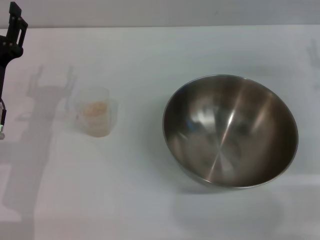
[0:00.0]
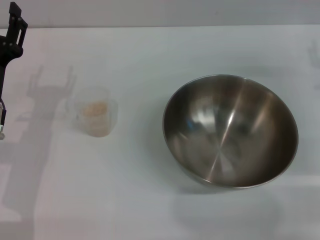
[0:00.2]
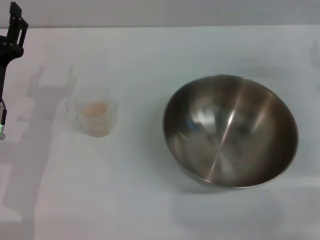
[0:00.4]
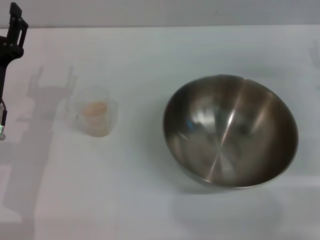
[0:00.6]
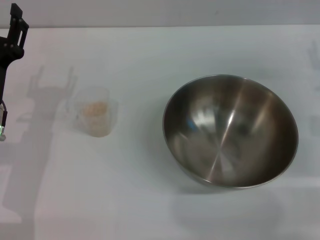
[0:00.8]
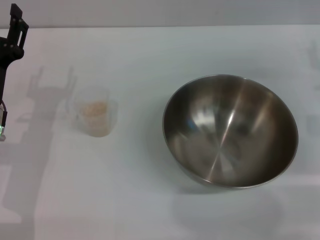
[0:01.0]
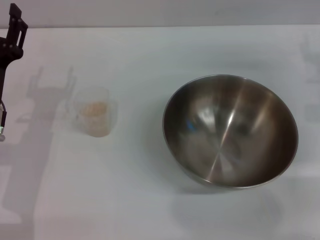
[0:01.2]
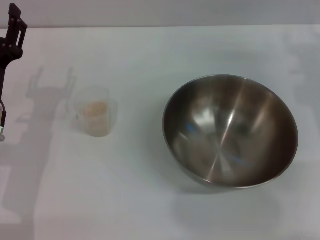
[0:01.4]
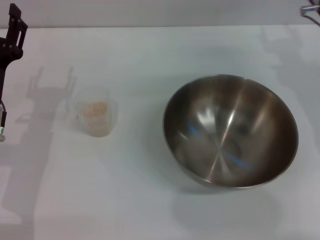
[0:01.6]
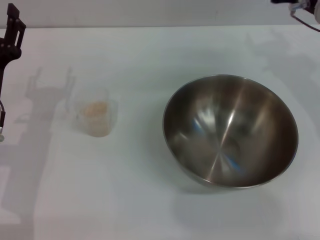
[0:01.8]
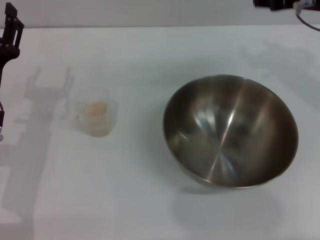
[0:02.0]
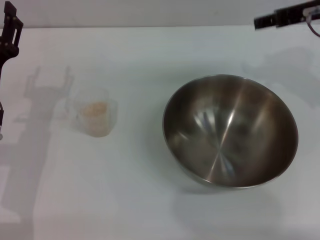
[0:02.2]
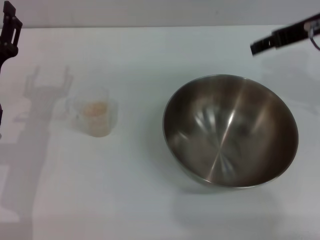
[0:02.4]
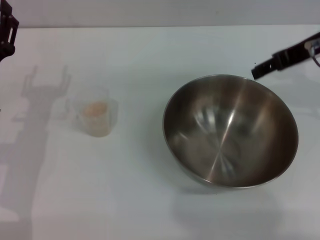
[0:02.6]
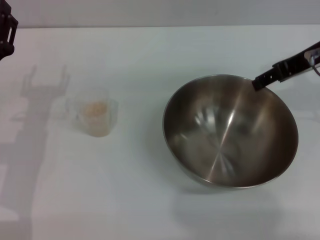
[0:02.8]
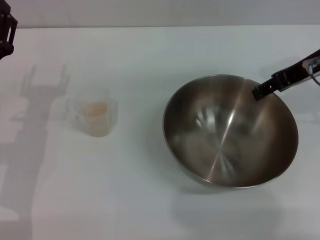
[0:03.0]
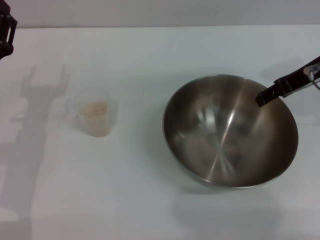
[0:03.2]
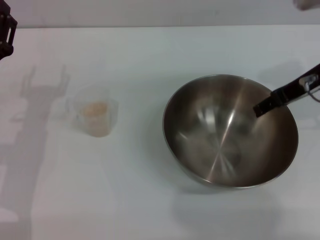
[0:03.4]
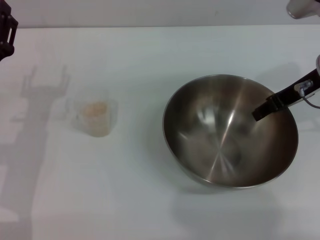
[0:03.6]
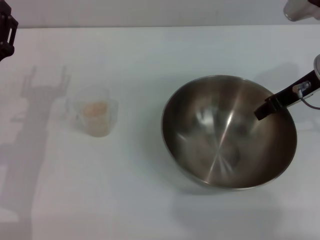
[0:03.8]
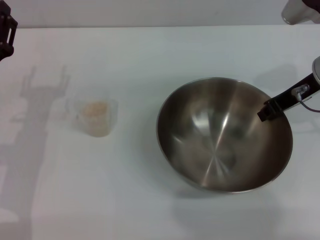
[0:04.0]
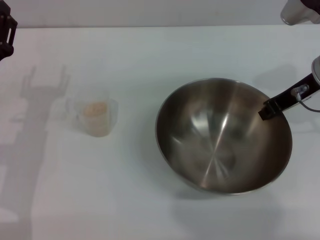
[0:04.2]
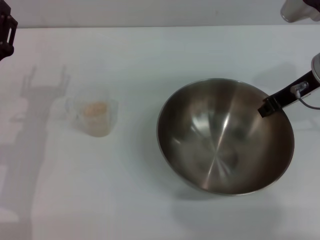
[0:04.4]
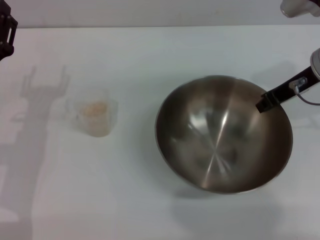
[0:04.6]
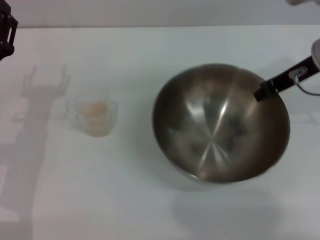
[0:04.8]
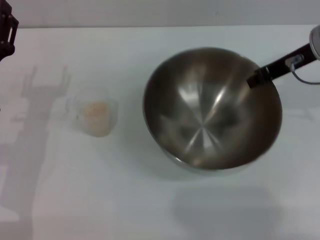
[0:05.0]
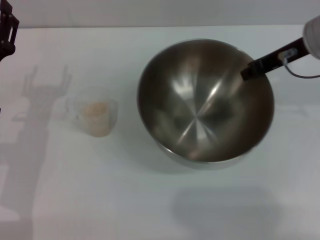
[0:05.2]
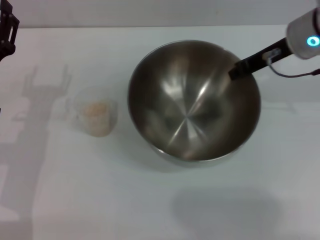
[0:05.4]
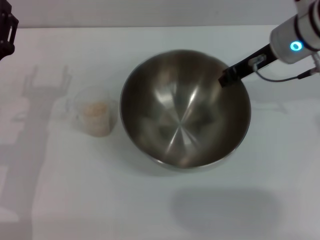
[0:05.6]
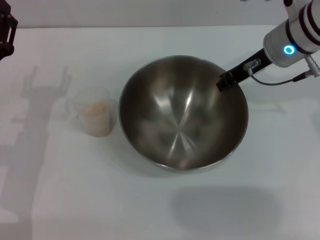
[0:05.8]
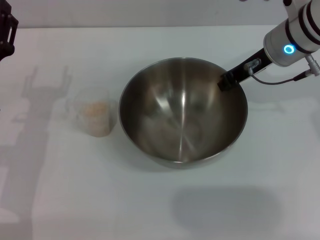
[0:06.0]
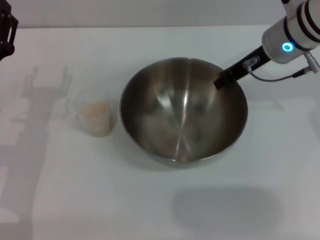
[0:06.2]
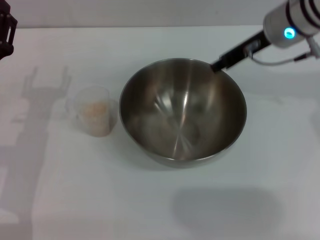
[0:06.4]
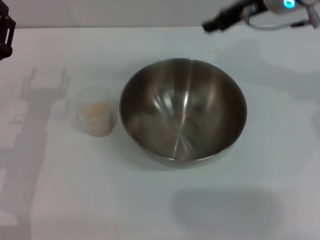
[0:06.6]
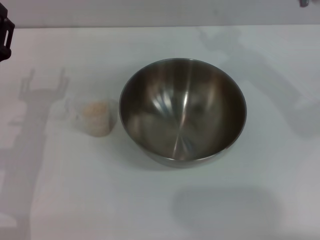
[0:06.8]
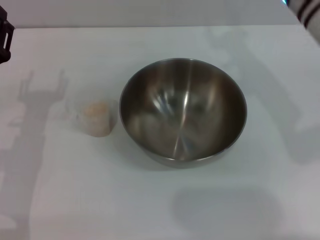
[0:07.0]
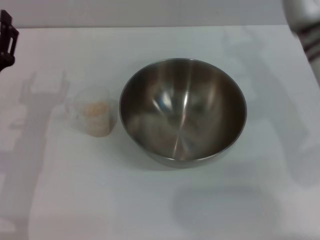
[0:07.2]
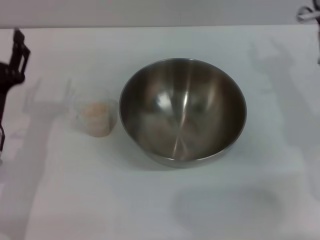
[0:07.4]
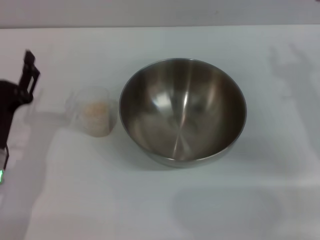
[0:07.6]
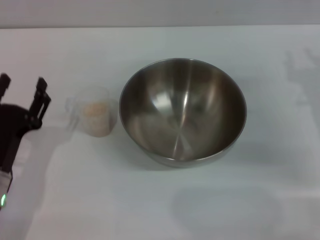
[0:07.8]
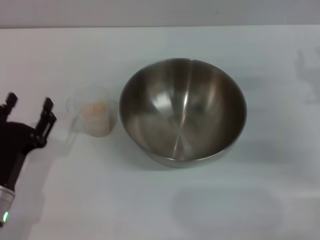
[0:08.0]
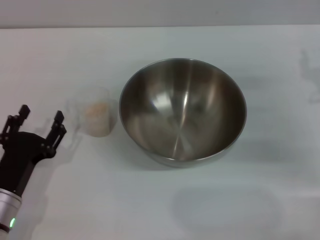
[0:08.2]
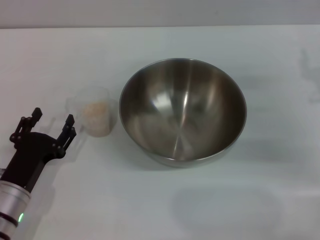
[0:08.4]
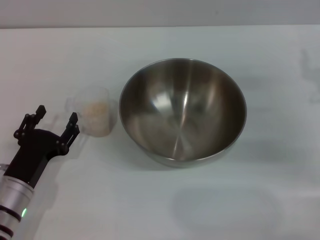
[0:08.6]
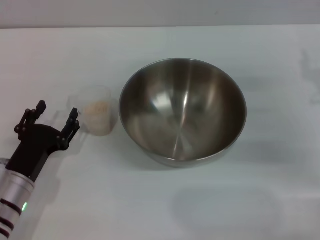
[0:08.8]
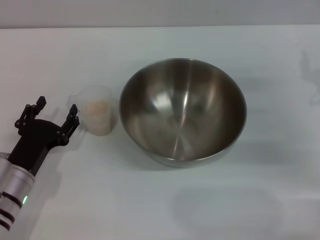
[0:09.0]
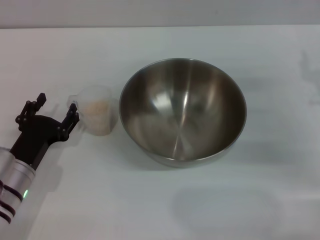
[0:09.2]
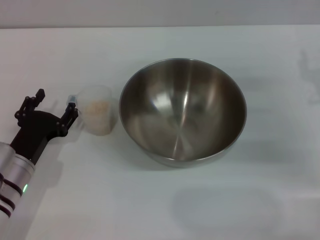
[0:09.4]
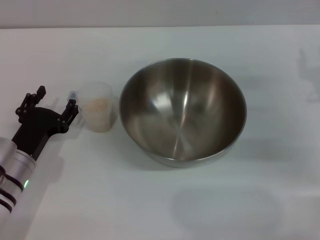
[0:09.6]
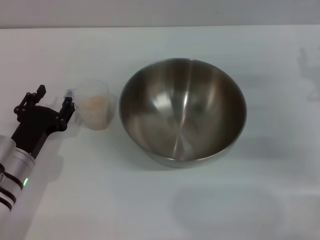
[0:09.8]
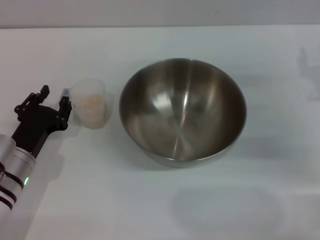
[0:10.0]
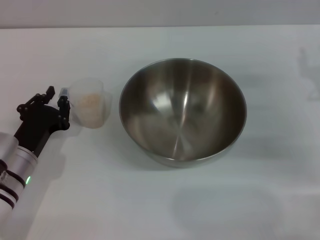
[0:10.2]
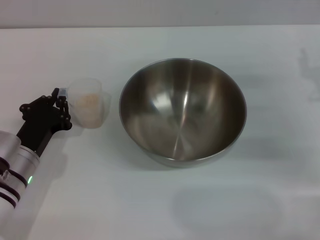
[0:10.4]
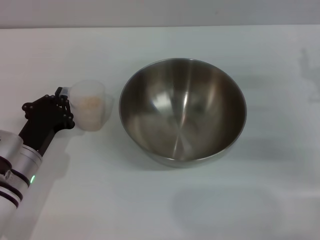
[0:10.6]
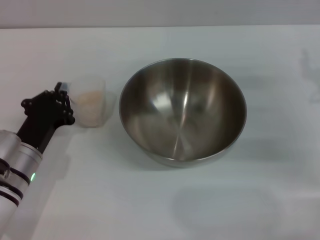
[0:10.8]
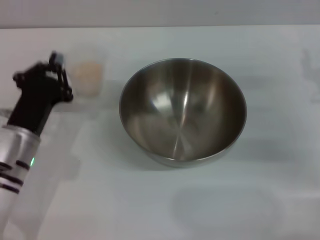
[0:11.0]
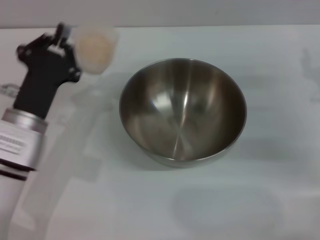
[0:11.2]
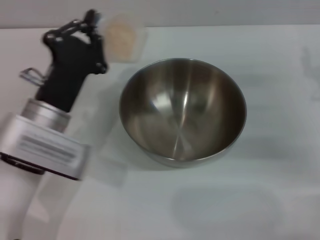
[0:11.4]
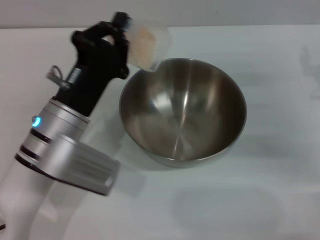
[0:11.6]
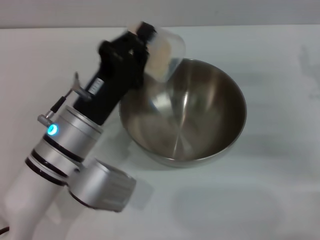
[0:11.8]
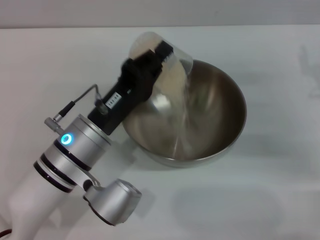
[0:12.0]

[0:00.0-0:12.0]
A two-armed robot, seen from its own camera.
Task of the whole recording: Place the bowl in the middle of the table with one hand and pour the rice from the grain cup into it with the other hand.
Step, 0:00.0 to 0:05.0: Pick up the bowl with the right gripper.
Step, 0:05.2 to 0:06.6: Place the bowl in the center of view with the right gripper.
Step, 0:06.8 to 0:11.0: Pick up the cup with rice in it with the left gripper.
0:00.0 to 0:01.6: The right gripper moves to the left, forward and upward, roughly 10 cm.
0:01.6 to 0:03.0: The right gripper goes roughly 5 cm upward.
0:03.0 to 0:04.4: The right gripper closes up.
0:04.4 to 0:06.0: The right gripper is displaced to the left by some 5 cm.
0:06.0 to 0:07.6: The left gripper changes place by about 5 cm. The right gripper goes about 15 cm backward, to the right and downward, and opens.
0:09.0 to 0:10.4: The left gripper closes.
0:10.4 to 0:12.0: The left gripper goes about 10 cm to the right and upward.

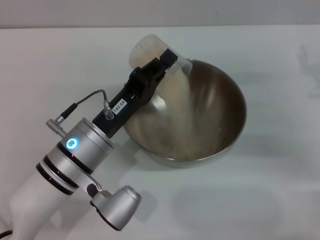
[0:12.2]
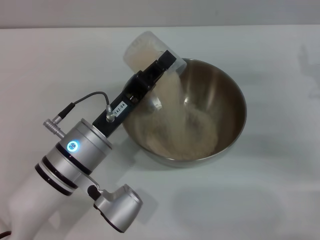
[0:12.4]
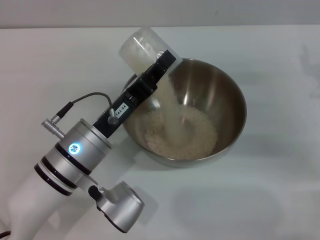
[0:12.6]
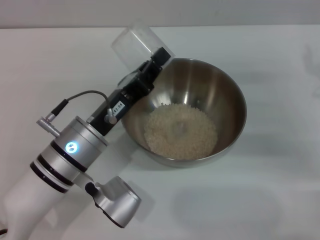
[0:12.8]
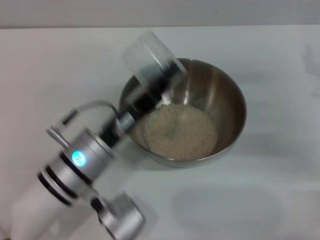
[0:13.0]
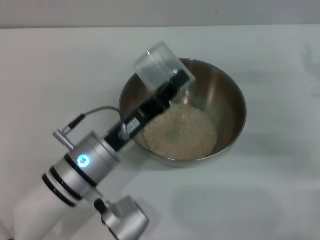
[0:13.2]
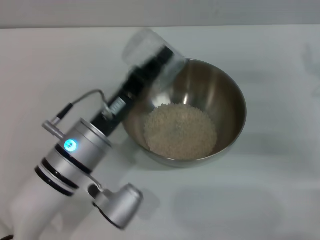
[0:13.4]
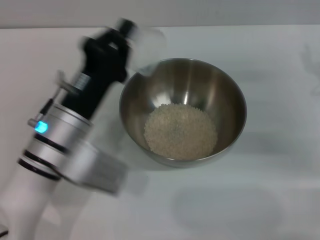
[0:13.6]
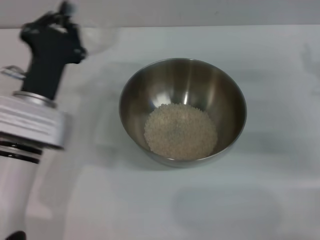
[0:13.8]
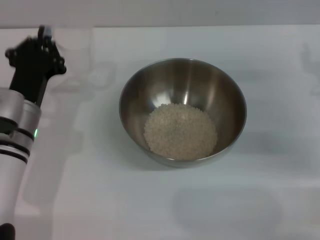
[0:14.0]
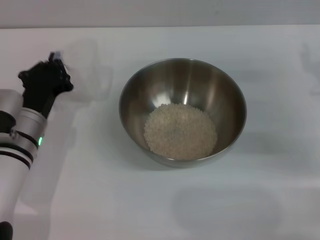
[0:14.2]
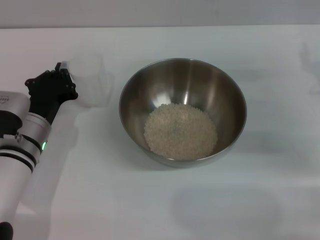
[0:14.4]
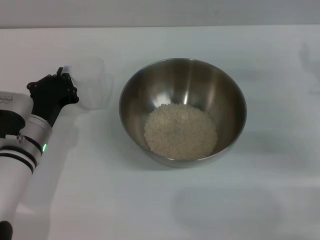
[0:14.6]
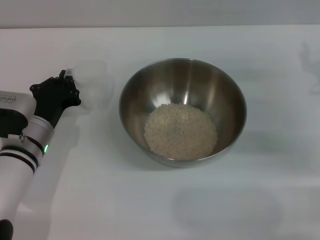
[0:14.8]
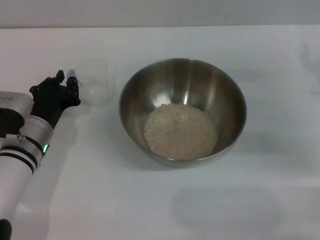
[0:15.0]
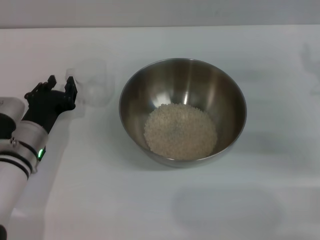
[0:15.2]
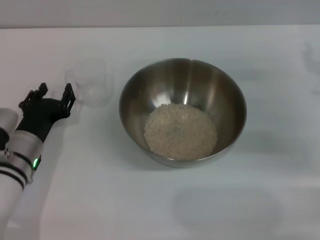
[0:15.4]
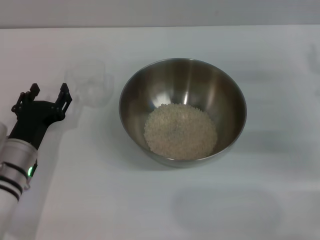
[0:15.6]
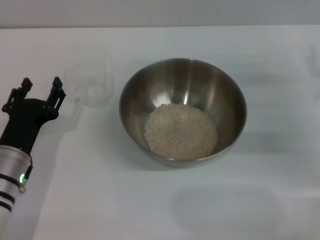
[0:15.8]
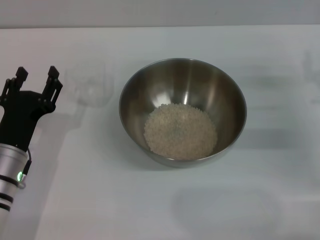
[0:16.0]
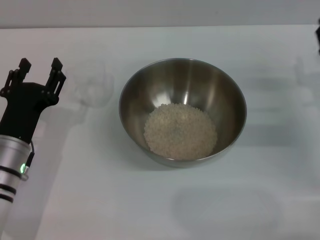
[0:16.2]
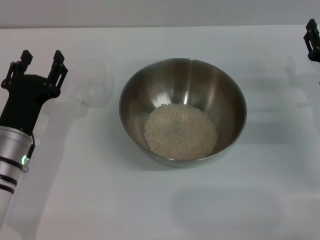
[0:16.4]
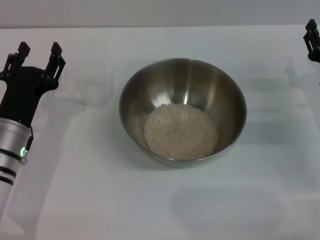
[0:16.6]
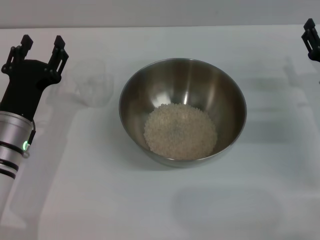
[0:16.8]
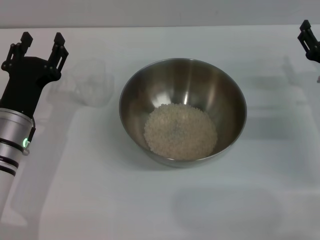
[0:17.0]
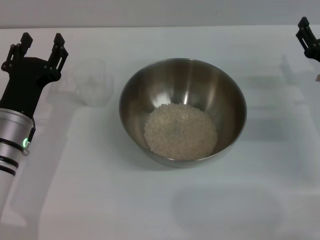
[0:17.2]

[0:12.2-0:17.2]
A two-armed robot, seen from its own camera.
Task of the whole recording: Place the bowl in the middle of the table with one hand and pour the rice from the grain cup into it with the other hand.
Step, 0:13.0 to 0:15.6: Place the cup on the table with the left gripper.
0:12.2 to 0:13.8: The left gripper shifts about 5 cm to the left.
0:13.8 to 0:15.6: The left gripper is displaced downward by roughly 5 cm, and opens.
0:15.6 to 0:17.2: The right gripper travels downward by about 5 cm.
